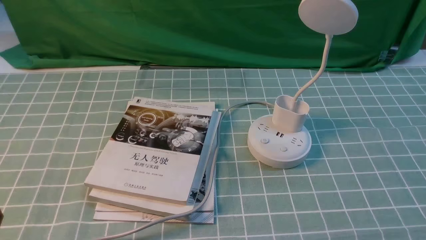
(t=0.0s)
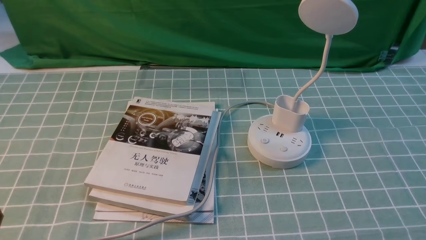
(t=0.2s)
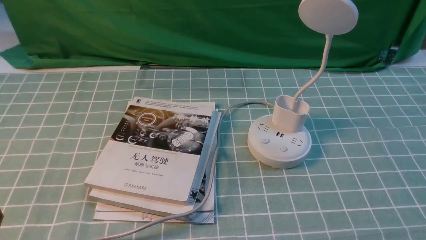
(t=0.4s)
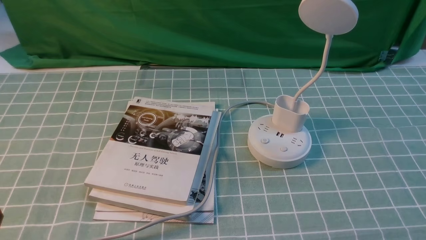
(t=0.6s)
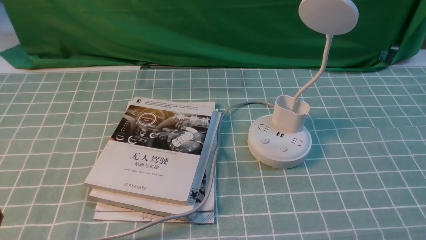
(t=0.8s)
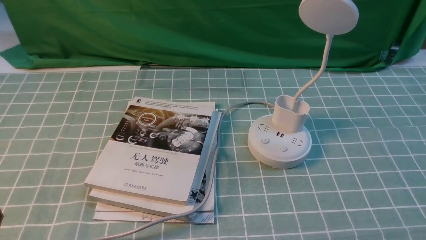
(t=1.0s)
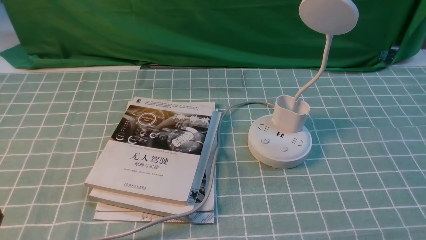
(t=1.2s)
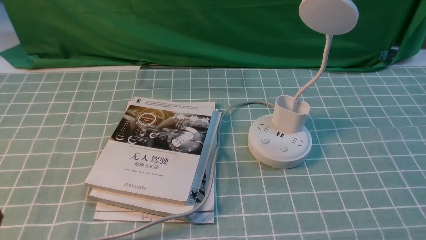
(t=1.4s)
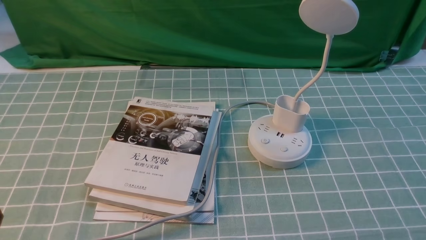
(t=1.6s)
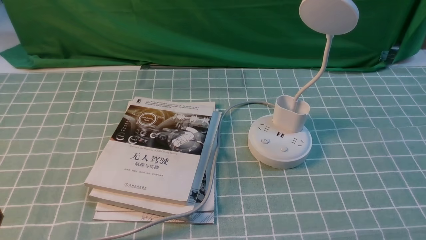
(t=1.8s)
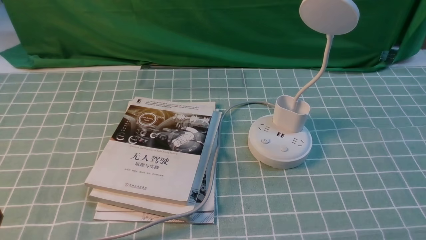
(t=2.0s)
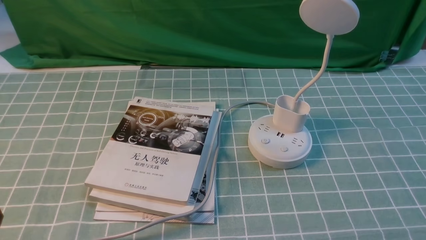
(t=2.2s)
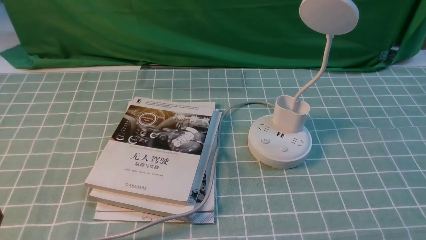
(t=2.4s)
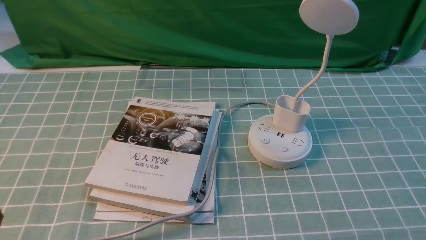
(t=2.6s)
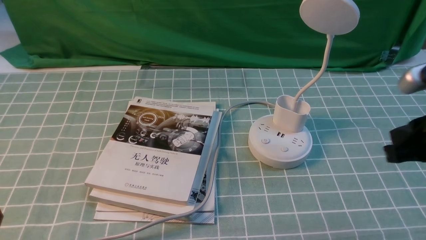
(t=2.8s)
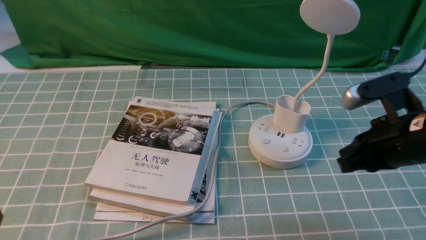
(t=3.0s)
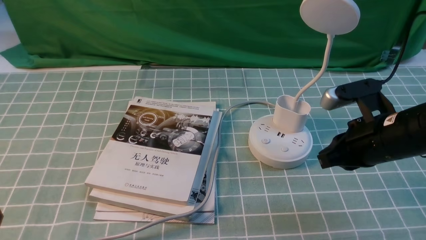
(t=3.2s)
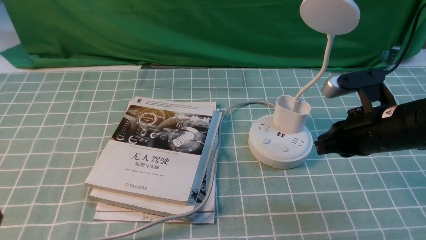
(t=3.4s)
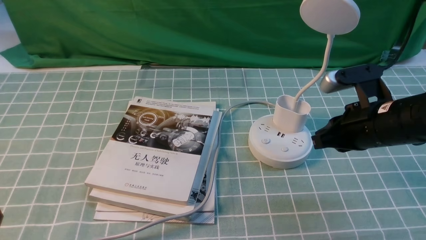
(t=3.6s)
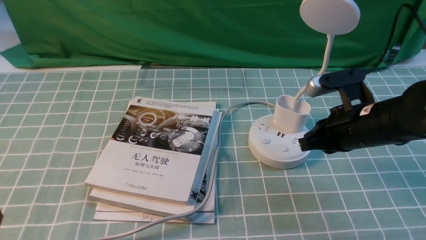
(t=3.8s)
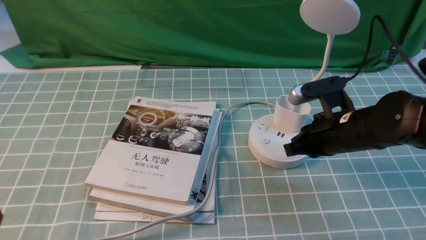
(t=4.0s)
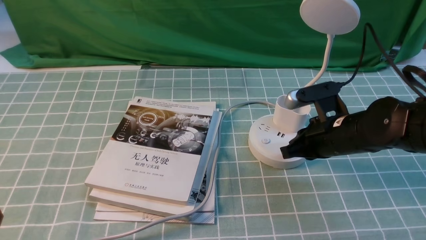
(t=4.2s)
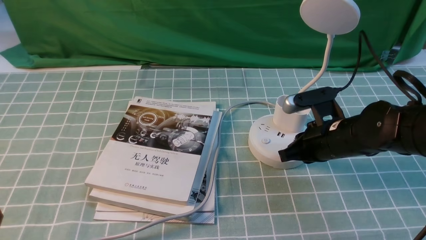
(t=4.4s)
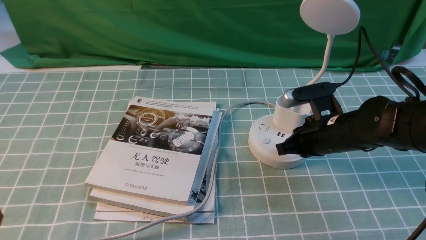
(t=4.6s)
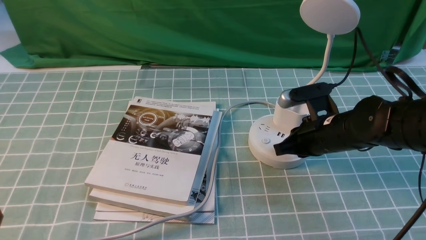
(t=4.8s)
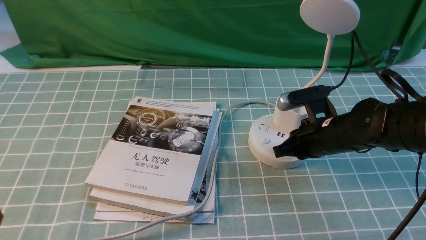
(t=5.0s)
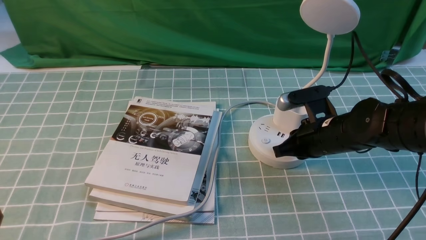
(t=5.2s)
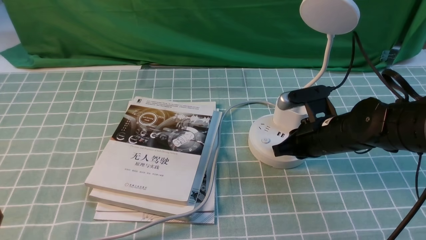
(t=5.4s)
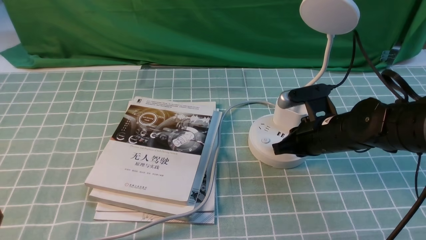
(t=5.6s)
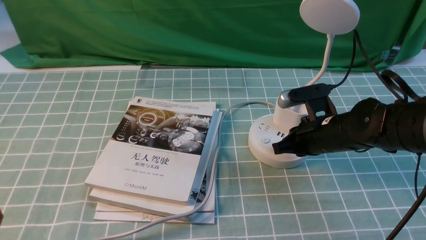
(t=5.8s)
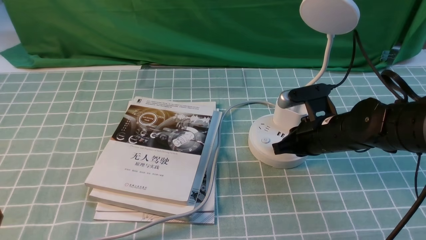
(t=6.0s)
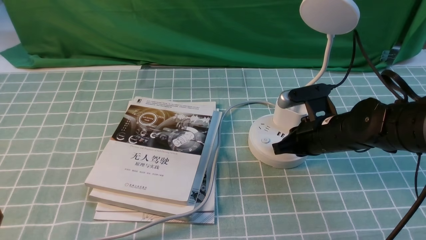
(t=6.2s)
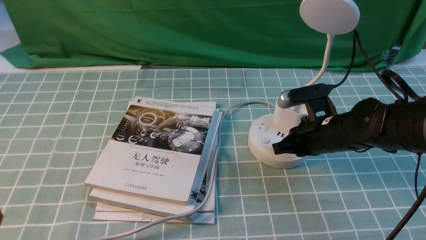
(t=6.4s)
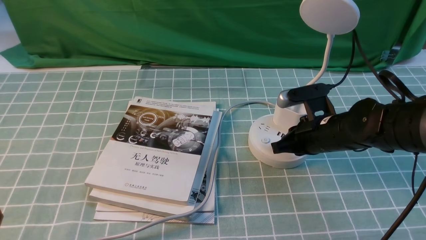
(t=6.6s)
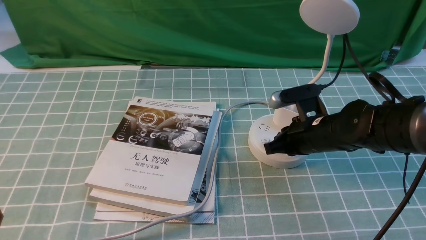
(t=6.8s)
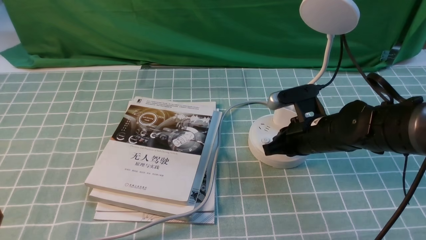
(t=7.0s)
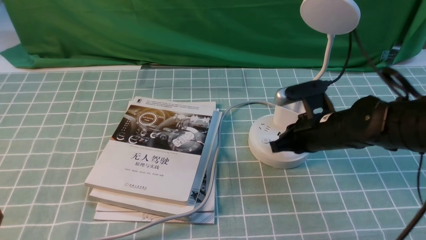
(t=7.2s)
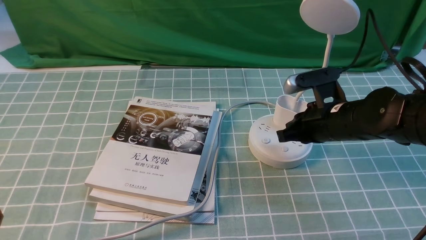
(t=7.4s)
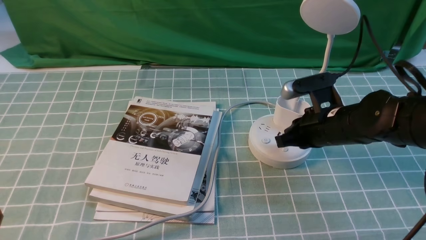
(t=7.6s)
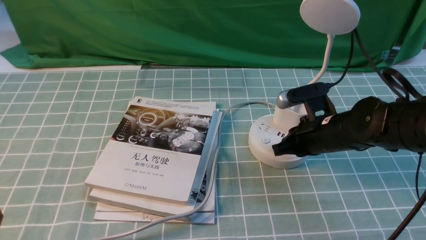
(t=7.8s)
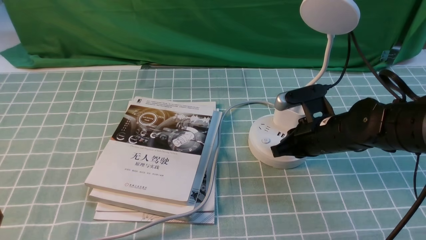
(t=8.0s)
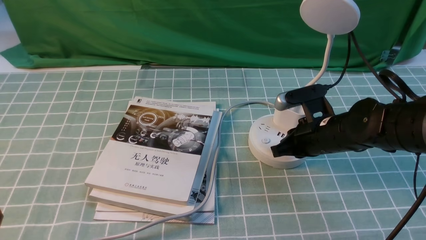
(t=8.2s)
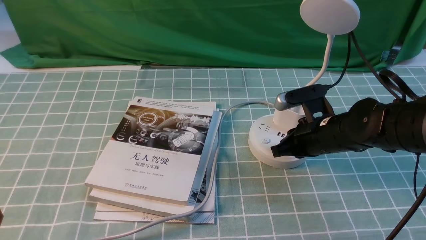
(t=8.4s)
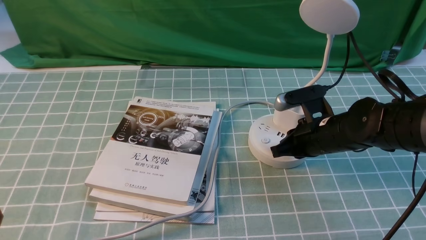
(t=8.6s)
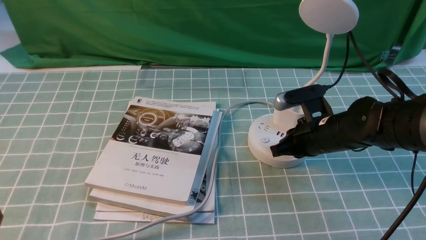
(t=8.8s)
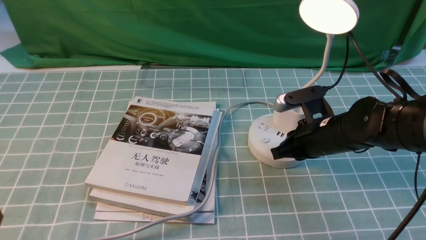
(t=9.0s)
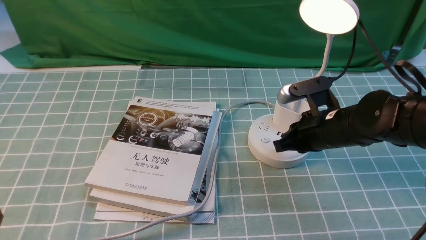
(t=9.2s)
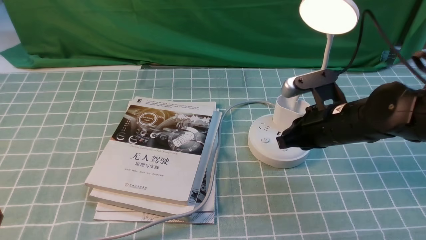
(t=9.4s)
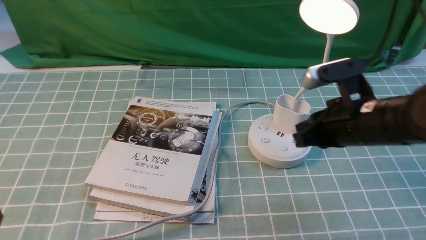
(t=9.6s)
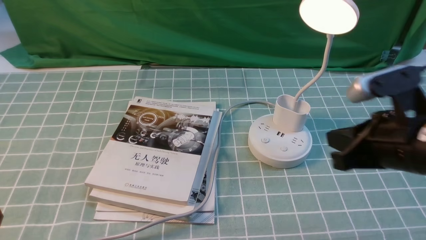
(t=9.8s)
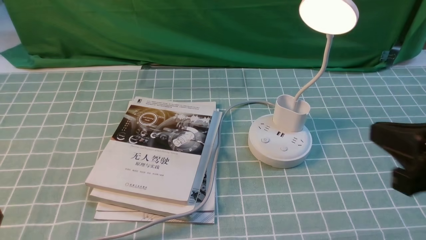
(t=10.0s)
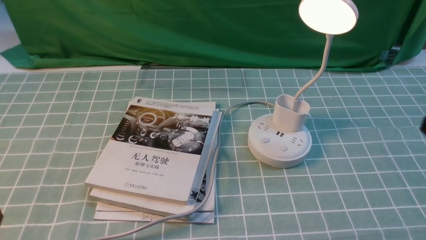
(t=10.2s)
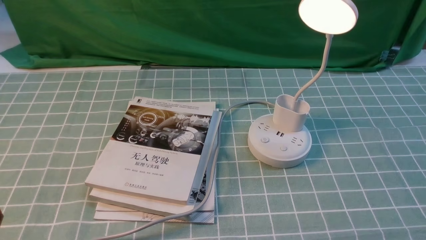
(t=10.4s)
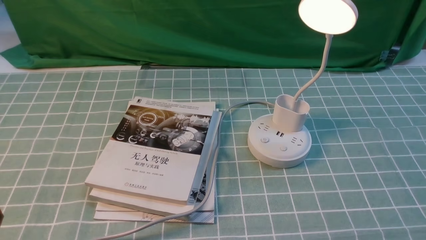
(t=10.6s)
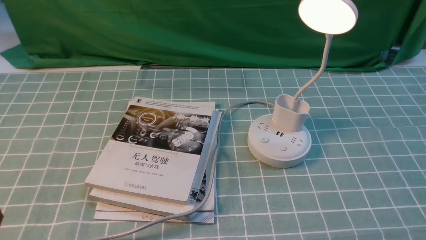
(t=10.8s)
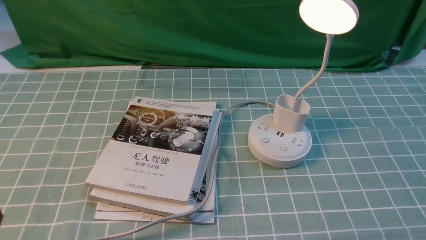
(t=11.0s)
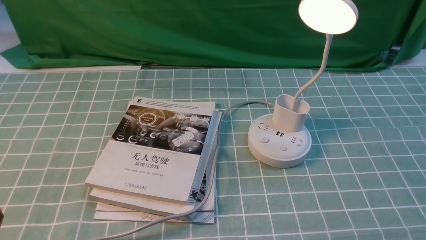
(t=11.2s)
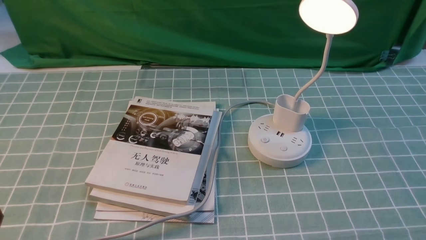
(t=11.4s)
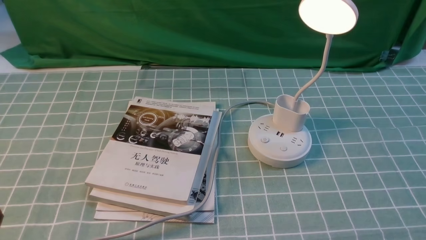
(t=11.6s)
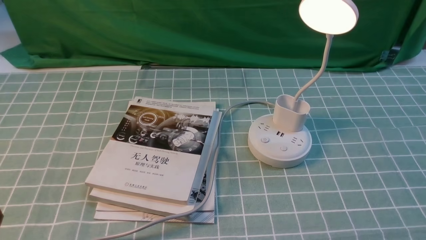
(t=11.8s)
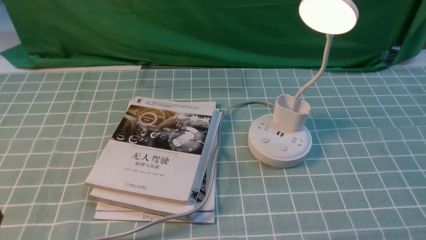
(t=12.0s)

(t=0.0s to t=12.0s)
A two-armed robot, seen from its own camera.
Step, t=0.0s - t=9.2s: use the right arm to press the button switch on the lamp holder.
t=1.6s - t=3.0s: The right gripper goes roughly 20 cm forward, upward and to the left, and closes.
t=3.0s - t=4.4s: The right gripper moves downward, forward and to the left, about 15 cm.
t=4.4s - t=9.0s: The grippers make only small movements.
t=9.0s - t=10.4s: The right gripper shifts some 30 cm backward, upward and to the right.

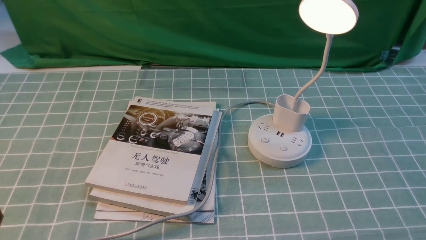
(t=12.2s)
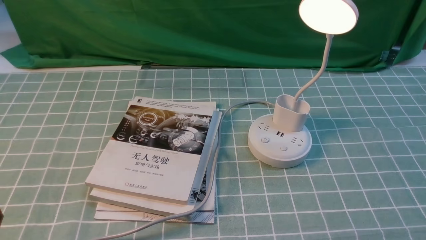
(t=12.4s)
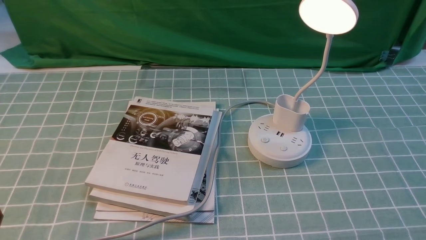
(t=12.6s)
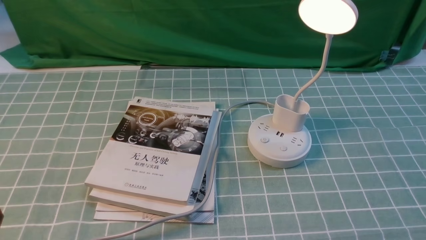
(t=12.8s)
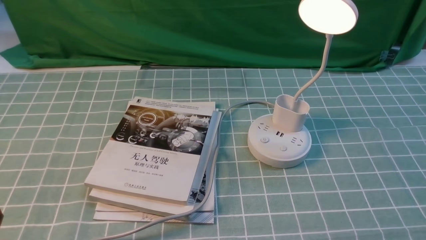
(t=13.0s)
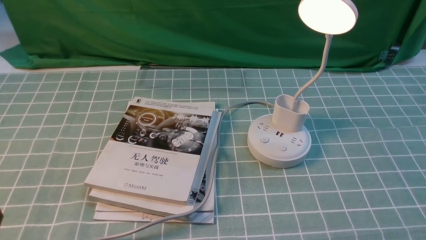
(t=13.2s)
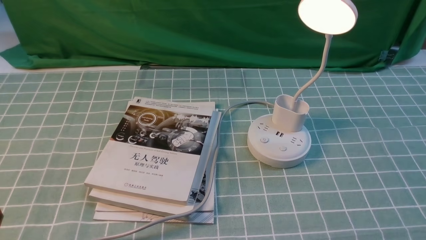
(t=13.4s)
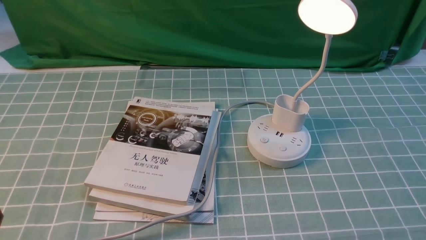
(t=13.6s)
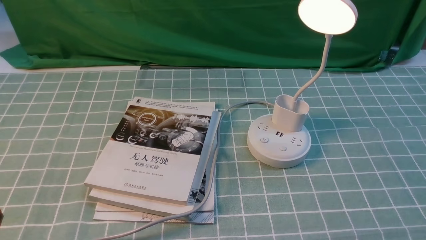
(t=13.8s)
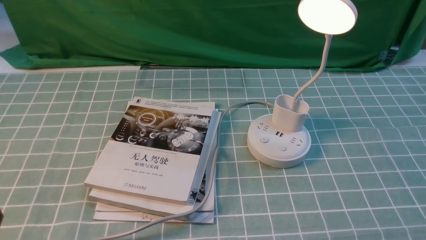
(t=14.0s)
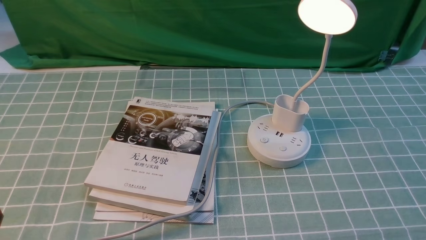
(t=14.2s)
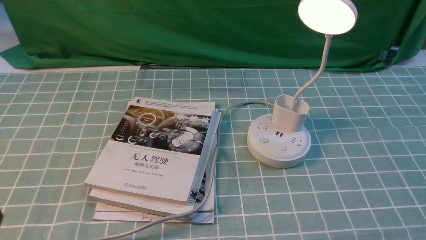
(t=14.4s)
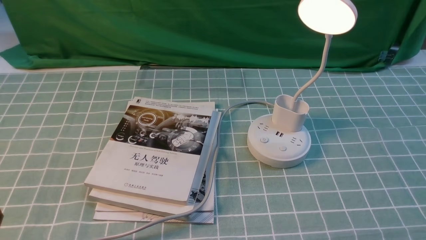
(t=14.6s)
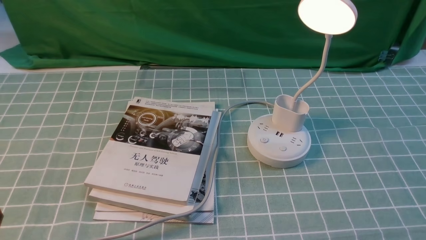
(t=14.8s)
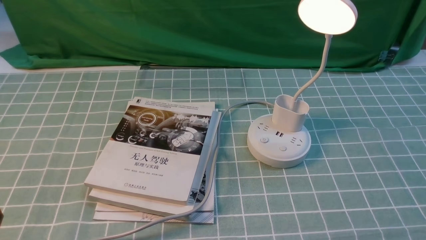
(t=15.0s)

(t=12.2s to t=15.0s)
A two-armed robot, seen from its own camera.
t=12.2s - t=15.0s: Neither gripper changes place.
